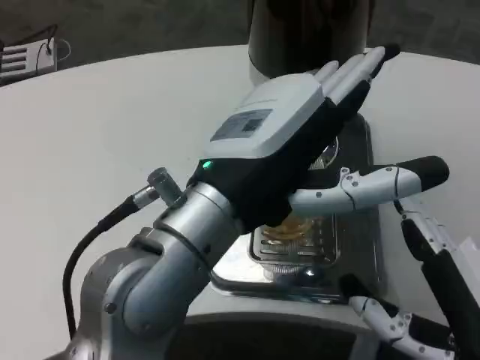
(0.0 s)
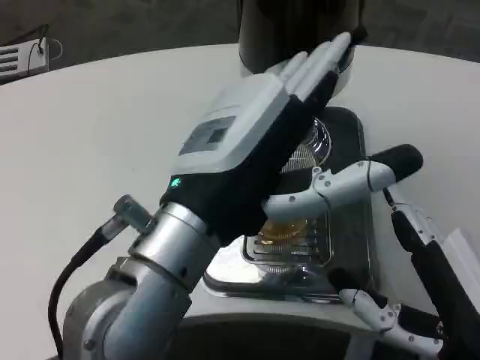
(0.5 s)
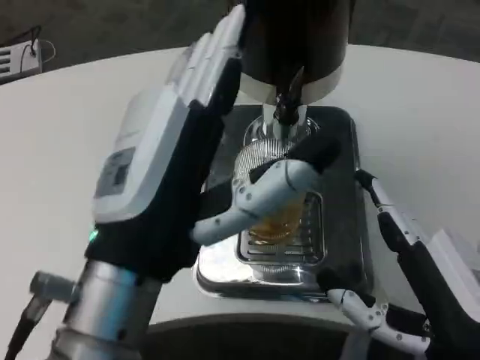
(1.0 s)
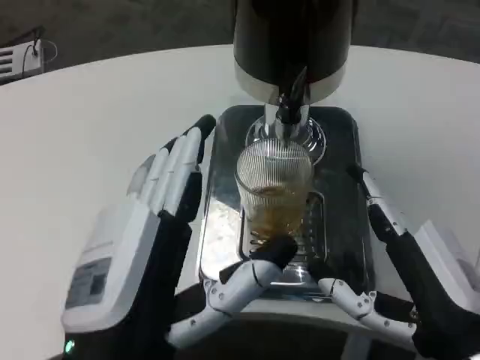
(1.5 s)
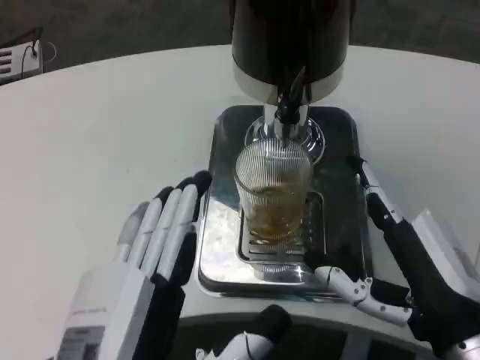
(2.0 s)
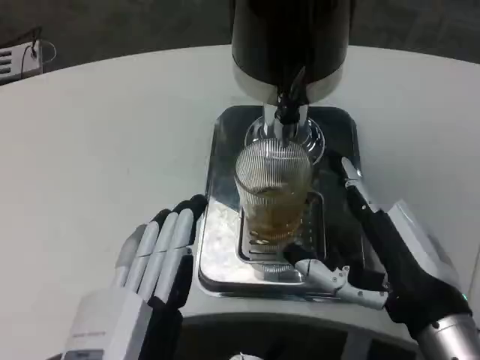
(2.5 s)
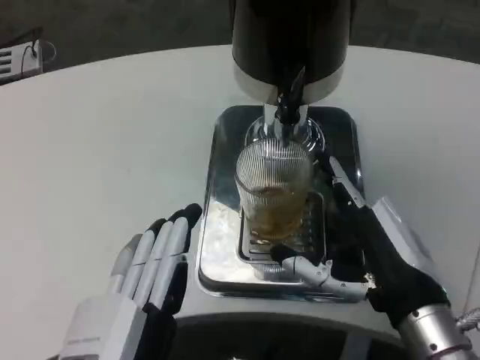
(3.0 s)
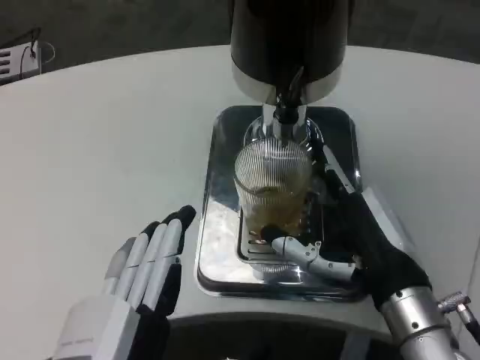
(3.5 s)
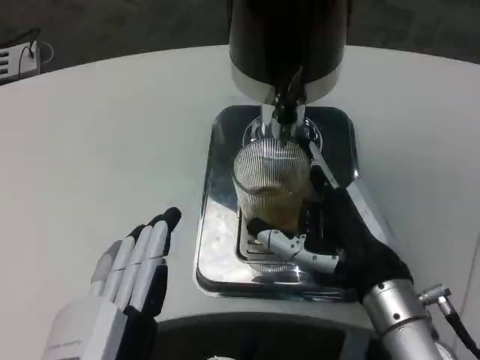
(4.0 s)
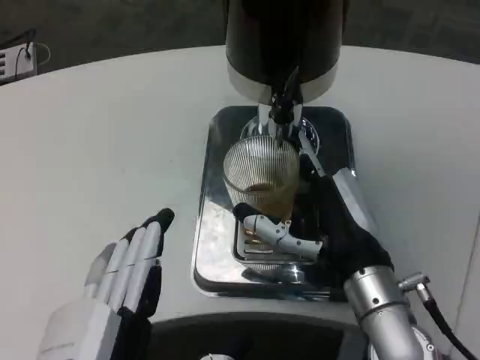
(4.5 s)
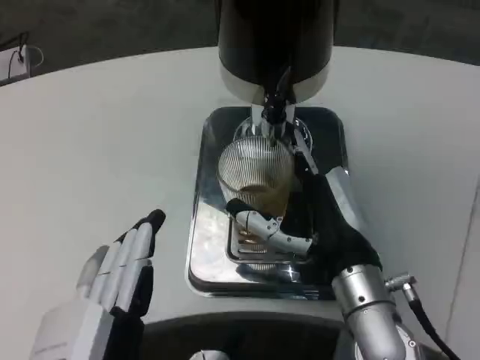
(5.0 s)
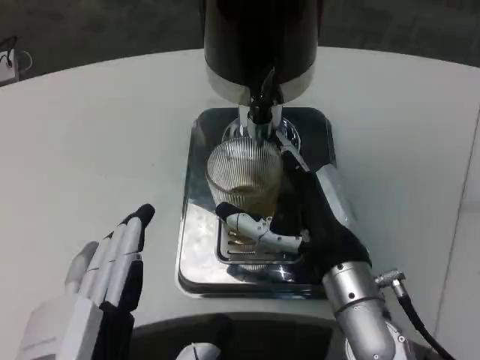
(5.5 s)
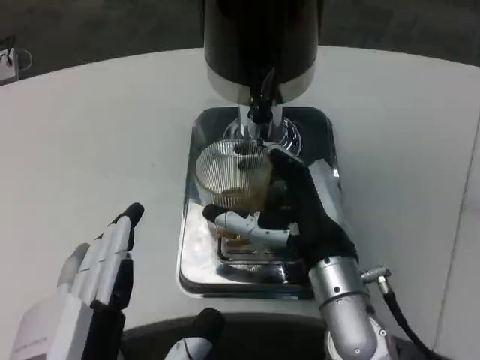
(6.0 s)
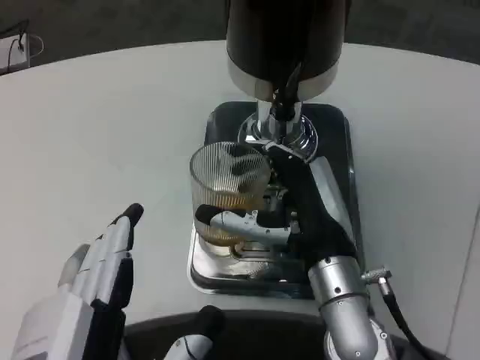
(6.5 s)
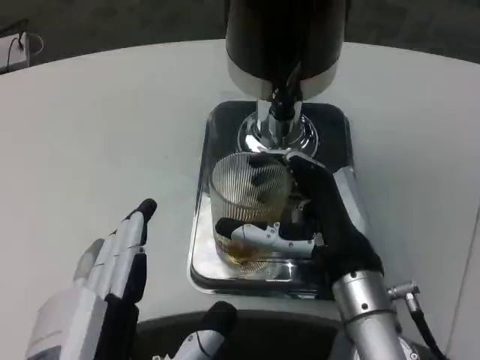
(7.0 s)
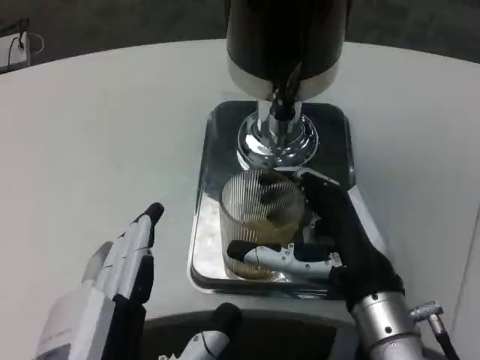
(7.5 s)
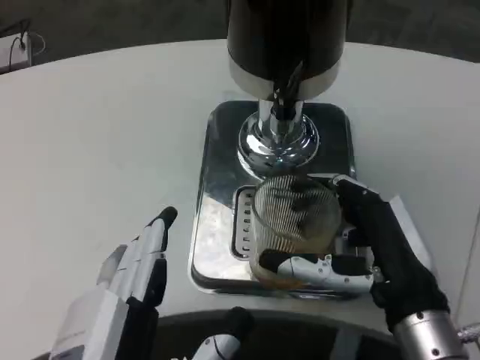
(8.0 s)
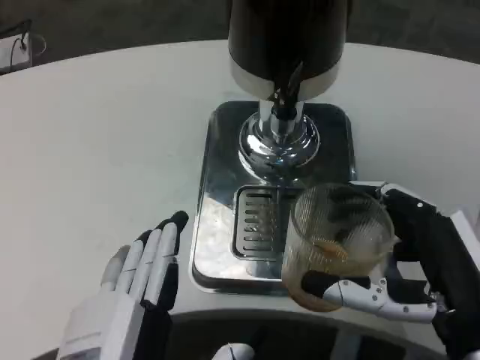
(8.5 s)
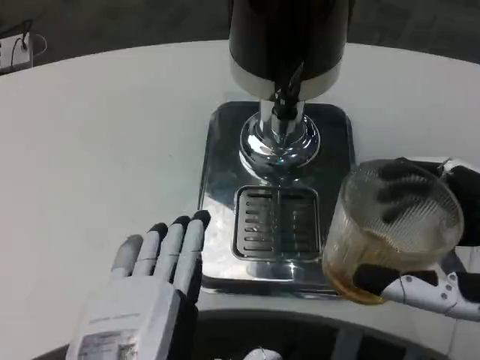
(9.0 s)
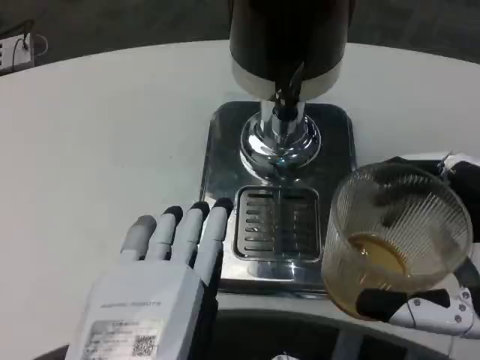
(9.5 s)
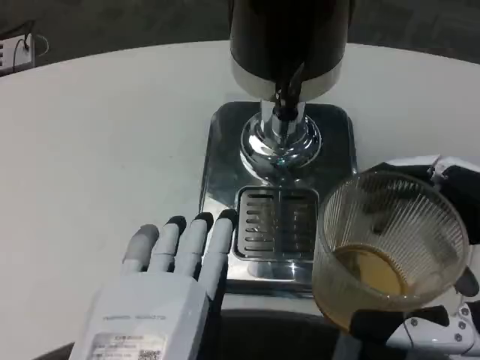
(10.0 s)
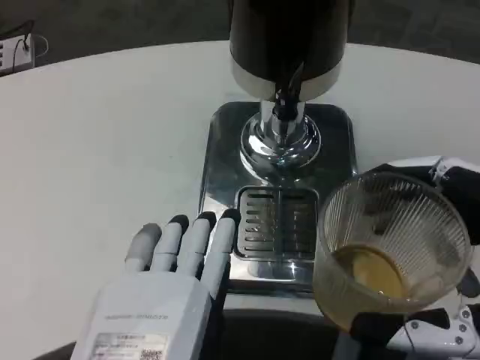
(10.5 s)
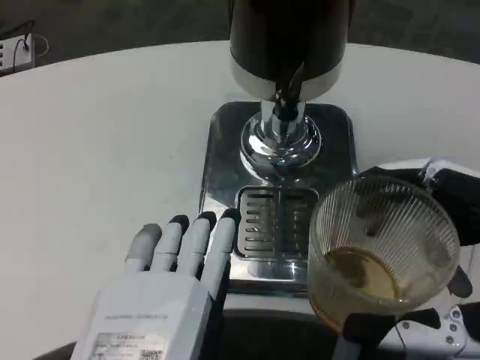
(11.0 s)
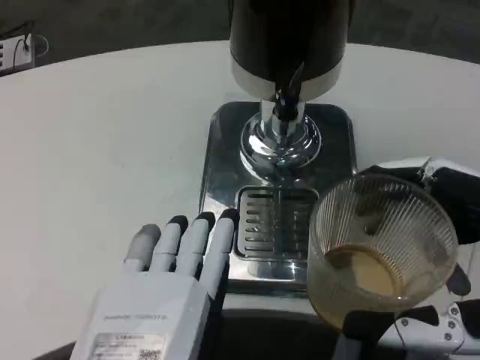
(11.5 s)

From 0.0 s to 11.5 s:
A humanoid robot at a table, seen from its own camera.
Task of the whole recording: Grasp the cup under the faucet to collect the drink, then remove the cup.
From 0.0 s to 2.0 s: The left hand is displaced downward and backward by approximately 15 cm.
From 2.0 s to 4.0 s: The right hand shifts approximately 10 cm forward and to the left.
From 4.0 s to 6.0 s: The right hand heads to the left, covering about 5 cm.
From 6.0 s to 7.5 s: The right hand ends up roughly 5 cm from where it was.
From 7.5 s to 9.5 s: The right hand shifts some 15 cm backward, to the right and upward. The left hand shifts roughly 5 cm upward.
From 9.5 s to 11.5 s: The two hands keep their place.

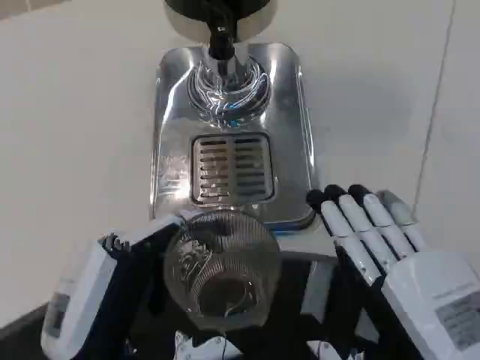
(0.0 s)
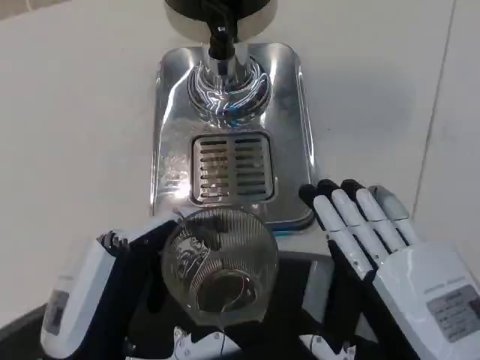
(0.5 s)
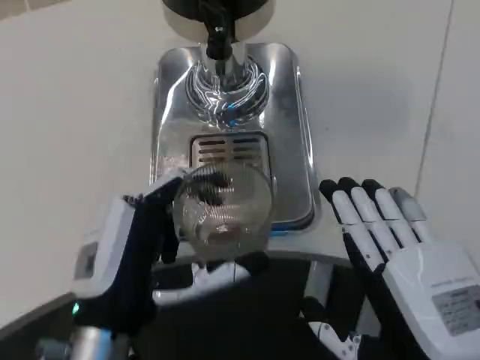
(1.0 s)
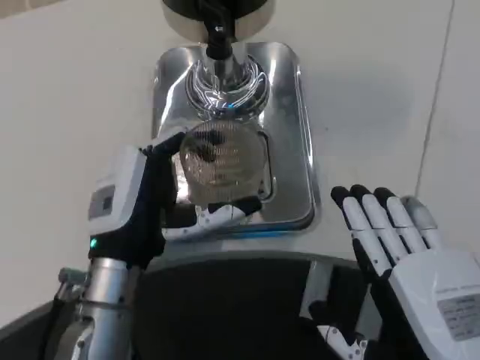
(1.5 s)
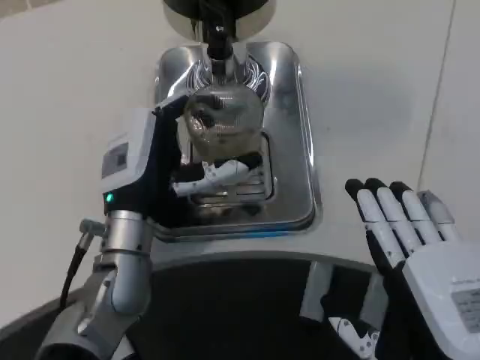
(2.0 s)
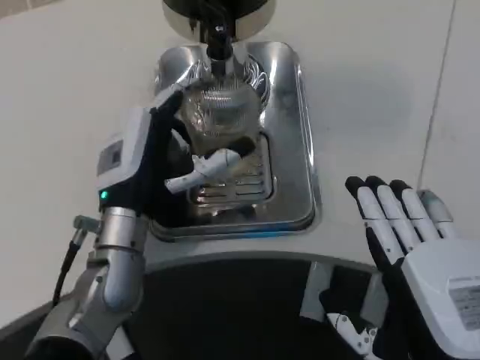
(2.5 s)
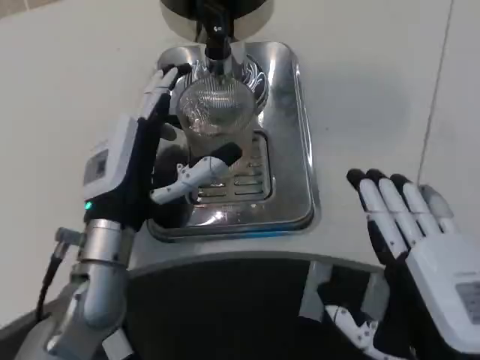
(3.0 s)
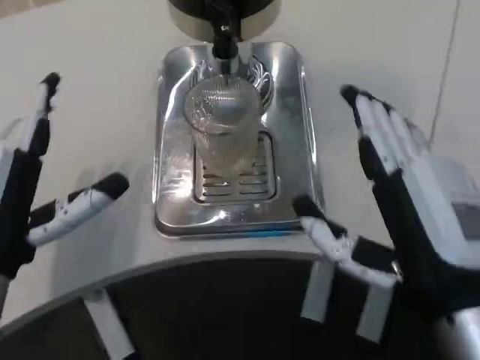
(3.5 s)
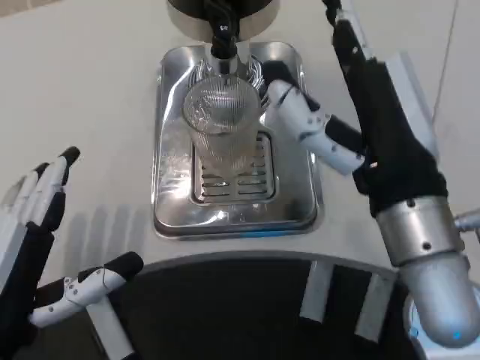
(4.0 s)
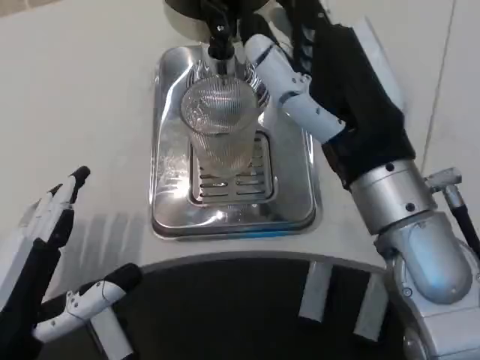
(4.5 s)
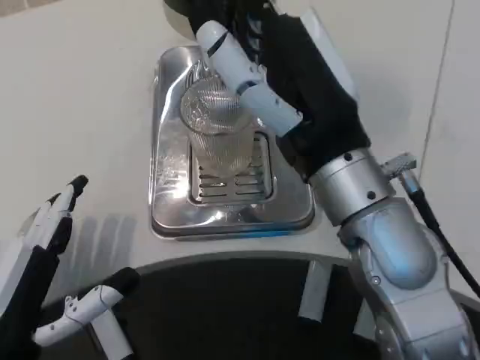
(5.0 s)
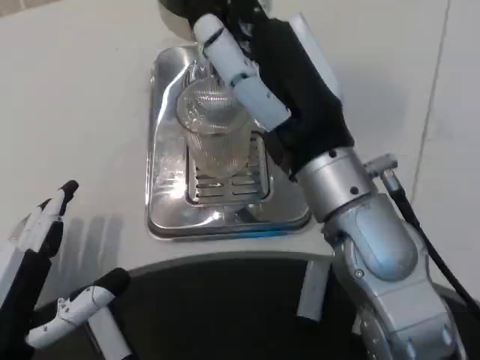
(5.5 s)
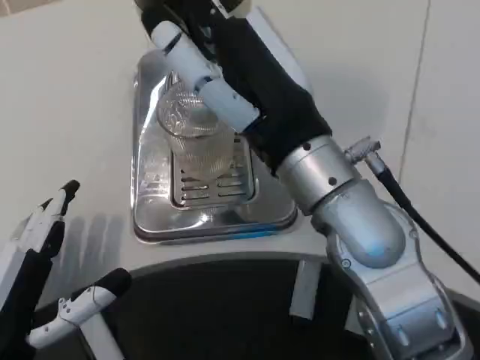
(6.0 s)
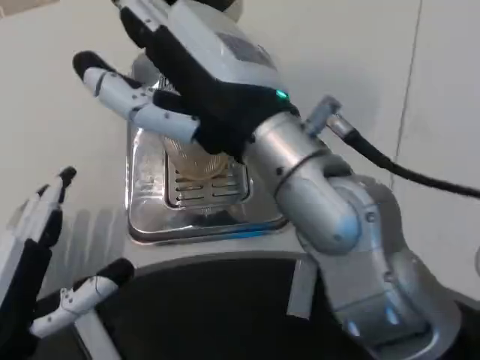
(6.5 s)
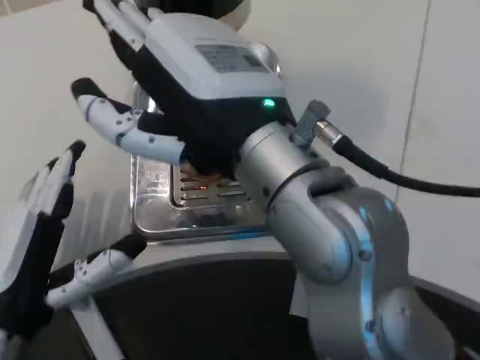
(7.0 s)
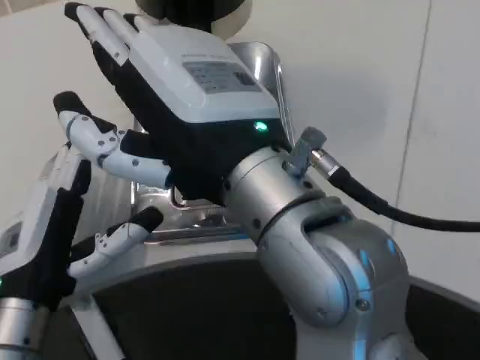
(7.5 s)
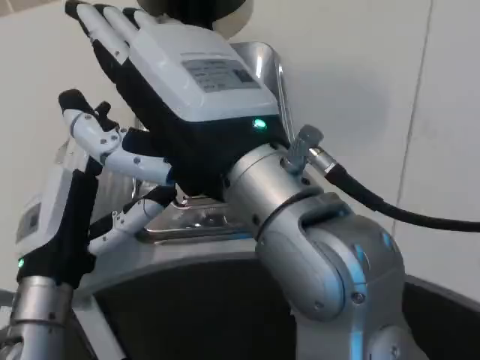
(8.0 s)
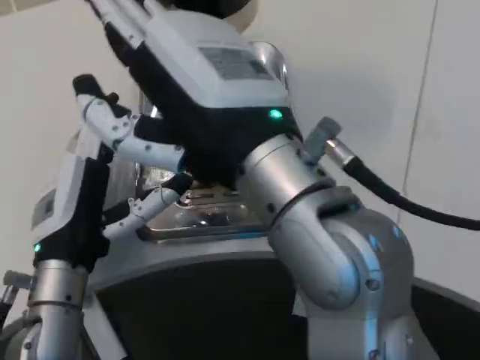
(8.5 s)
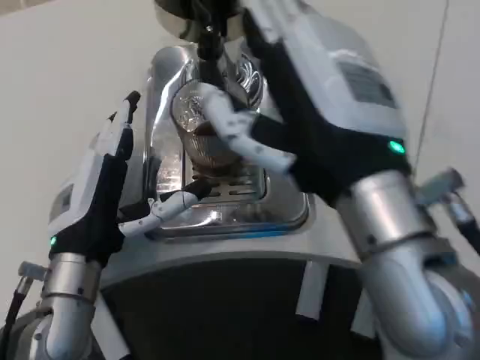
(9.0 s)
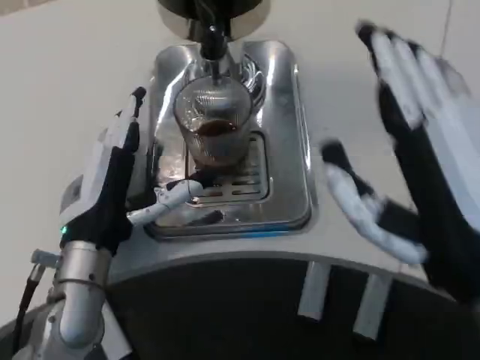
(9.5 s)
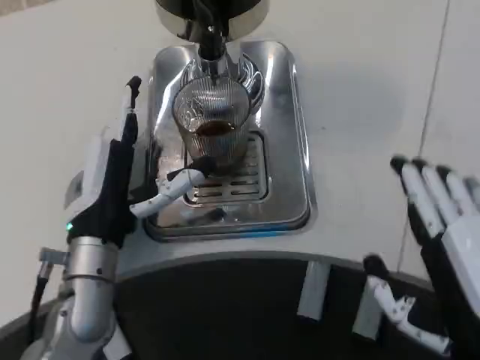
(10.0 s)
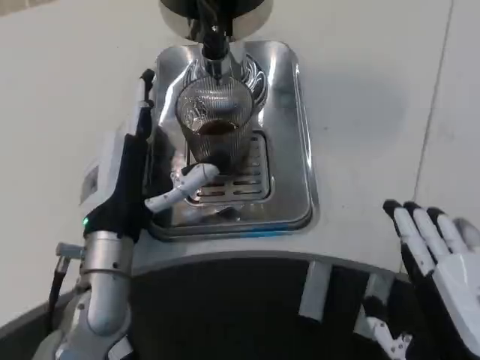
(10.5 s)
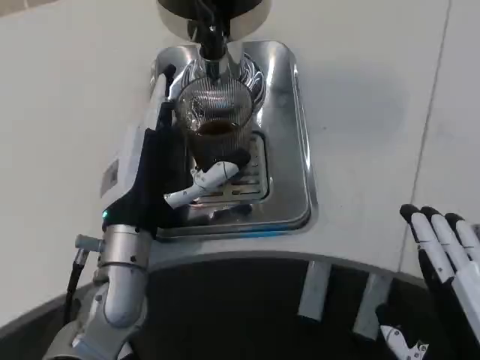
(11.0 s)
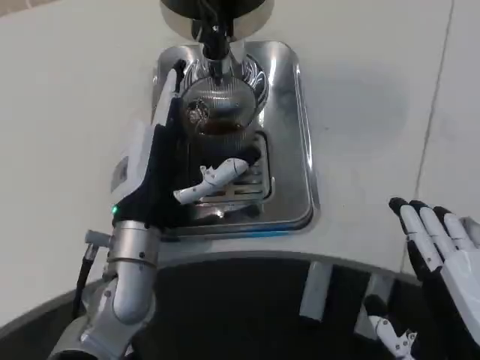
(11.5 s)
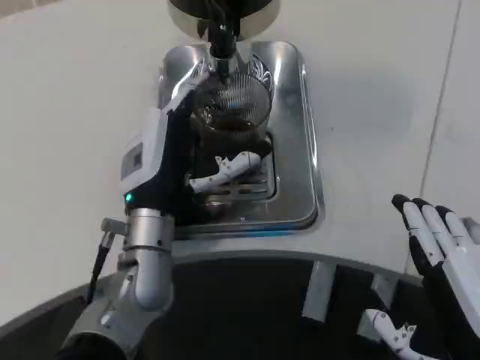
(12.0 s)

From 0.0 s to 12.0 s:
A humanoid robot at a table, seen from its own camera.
Task of the whole recording: Grasp the cup under the faucet to collect the drink, then remove the cup.
From 0.0 s to 2.0 s: The left hand travels forward by about 15 cm.
From 2.0 s to 4.0 s: The left hand heads backward and to the left, covering about 20 cm. Meanwhile the right hand shifts some 15 cm forward, upward and to the left.
From 4.0 s to 6.0 s: The right hand travels to the left by roughly 5 cm.
From 6.0 s to 8.0 s: The right hand is displaced backward by about 5 cm, while the left hand goes about 10 cm forward.
From 8.0 s to 10.0 s: The left hand ends up some 5 cm from where it was, while the right hand goes roughly 20 cm to the right, downward and backward.
From 10.0 s to 12.0 s: The left hand heads to the right, covering about 5 cm.

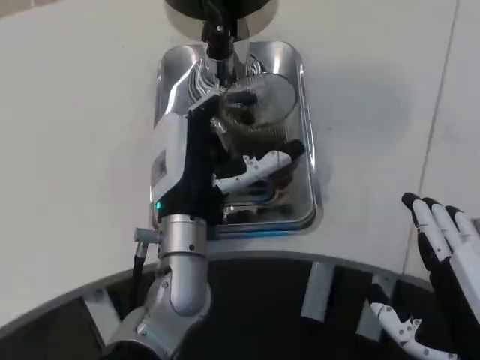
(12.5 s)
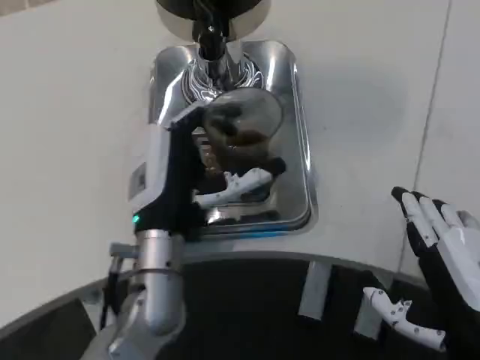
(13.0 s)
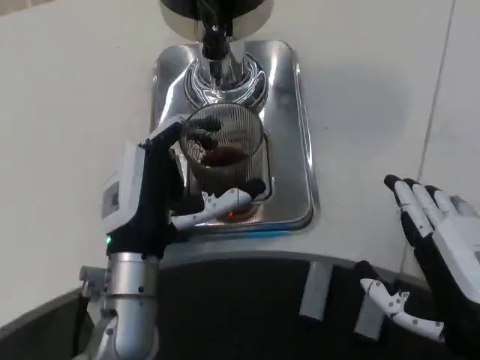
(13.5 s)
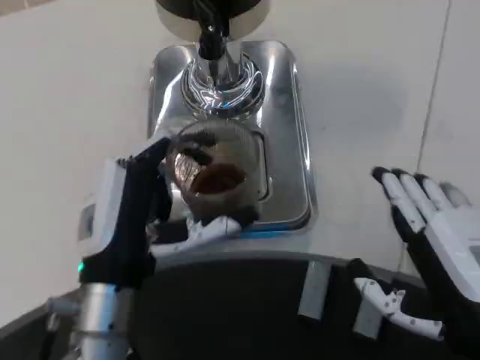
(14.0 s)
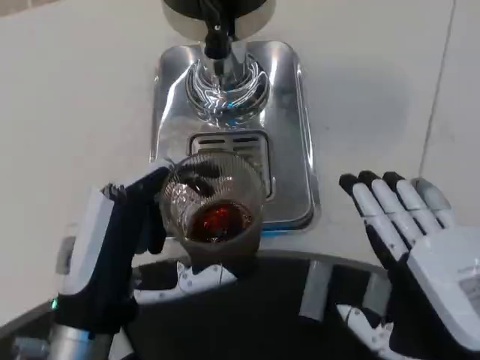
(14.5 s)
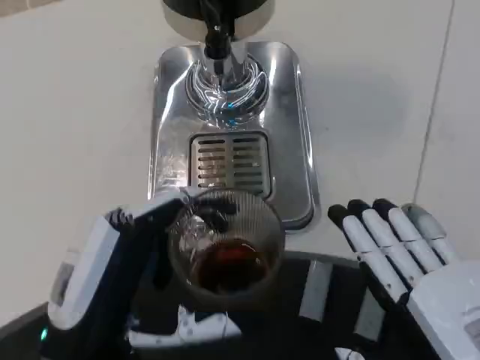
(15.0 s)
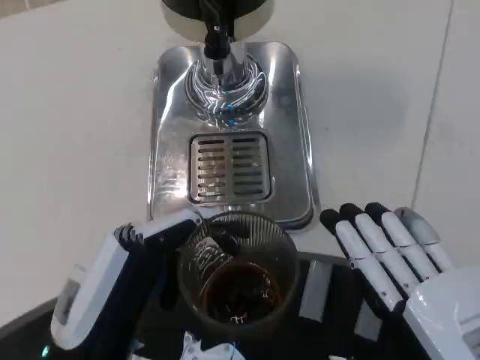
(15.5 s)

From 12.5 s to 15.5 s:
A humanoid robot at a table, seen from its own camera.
Task of the whole recording: Grasp the cup under the faucet to collect the drink, then remove the cup.
From 12.5 s to 14.0 s: The left hand moves backward and to the left, some 10 cm.
From 14.0 s to 15.5 s: Both hands move backward, approximately 5 cm.
